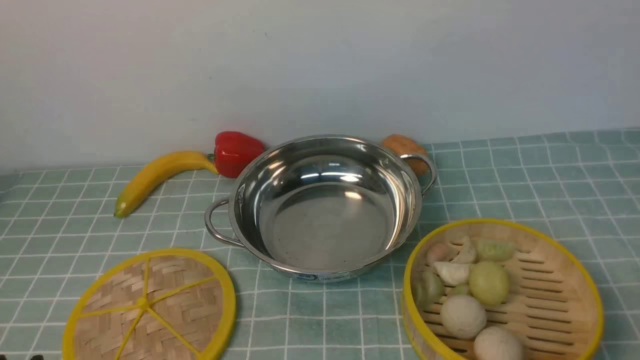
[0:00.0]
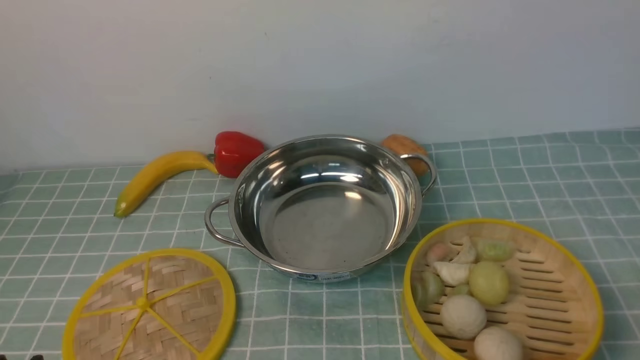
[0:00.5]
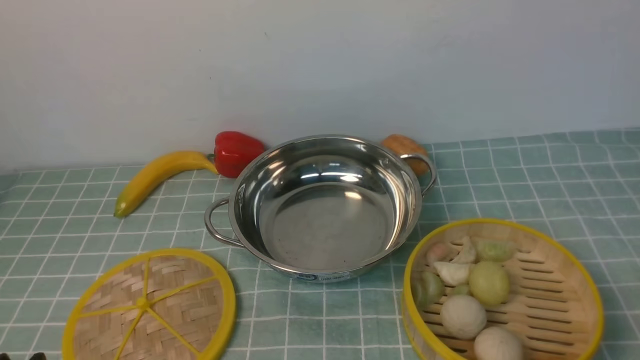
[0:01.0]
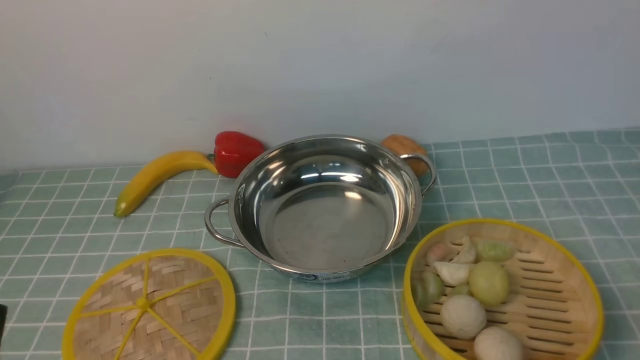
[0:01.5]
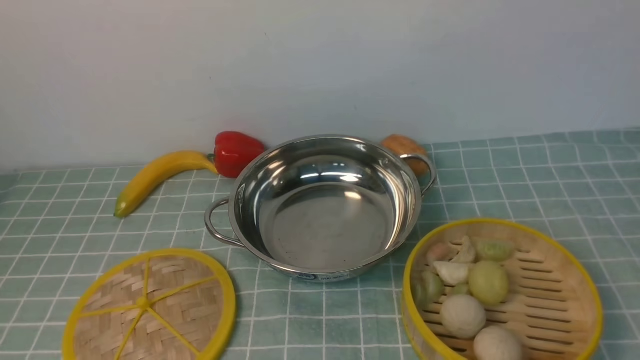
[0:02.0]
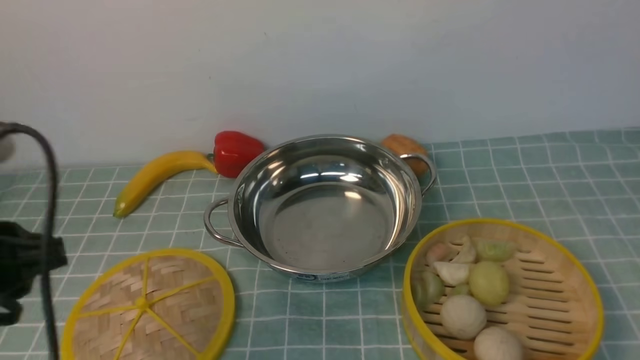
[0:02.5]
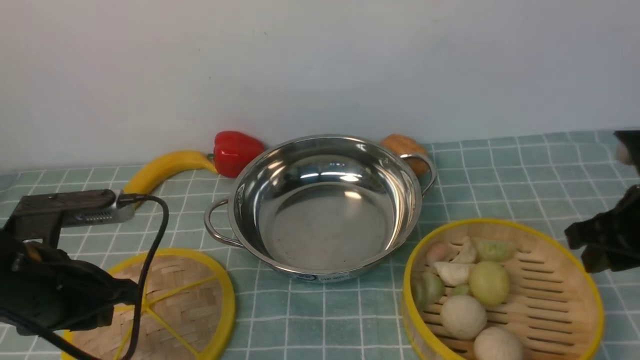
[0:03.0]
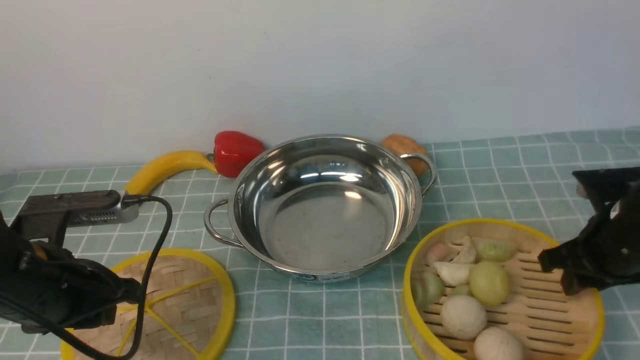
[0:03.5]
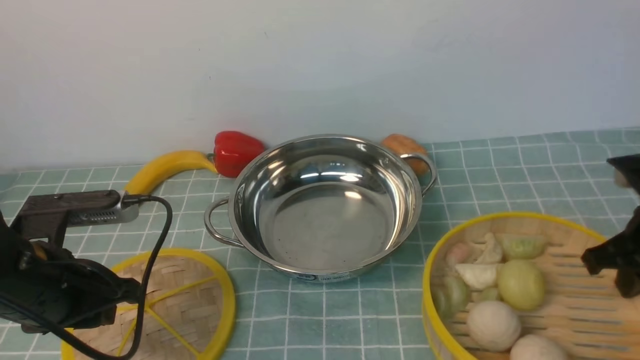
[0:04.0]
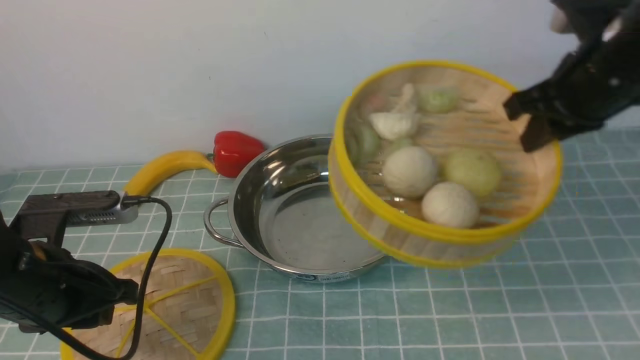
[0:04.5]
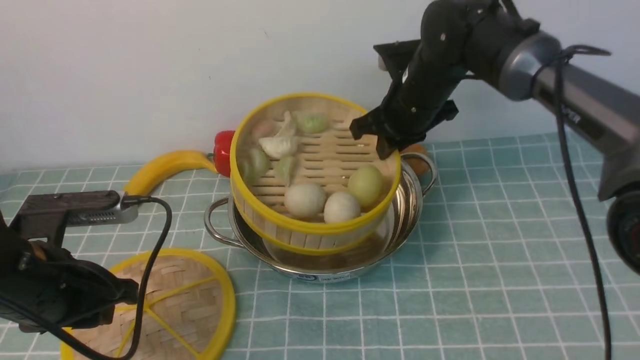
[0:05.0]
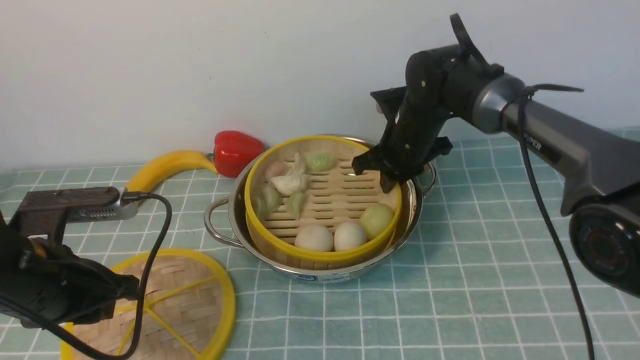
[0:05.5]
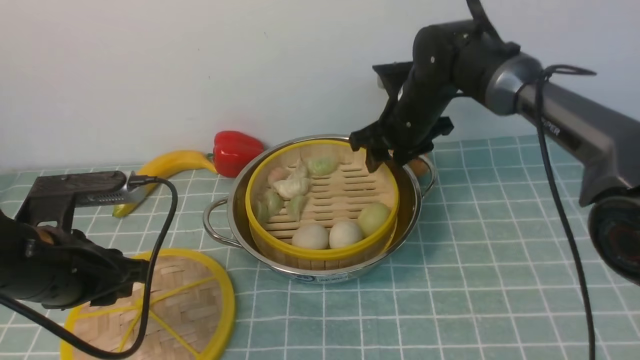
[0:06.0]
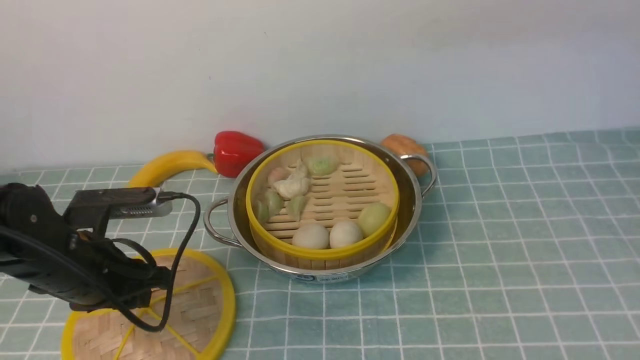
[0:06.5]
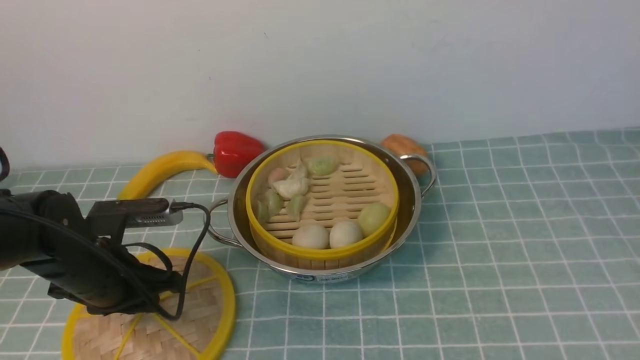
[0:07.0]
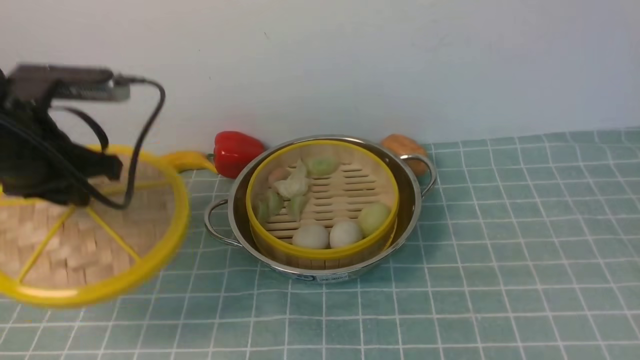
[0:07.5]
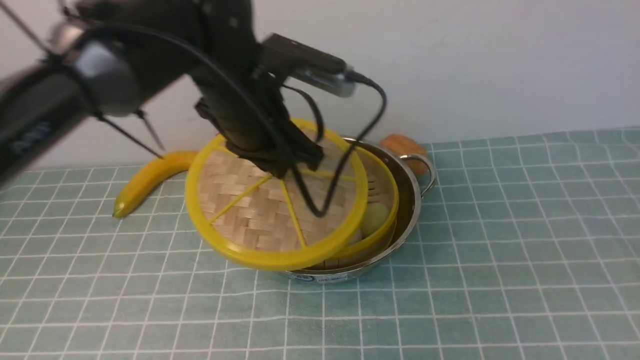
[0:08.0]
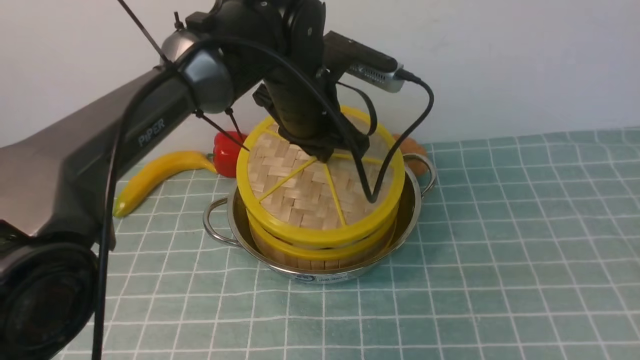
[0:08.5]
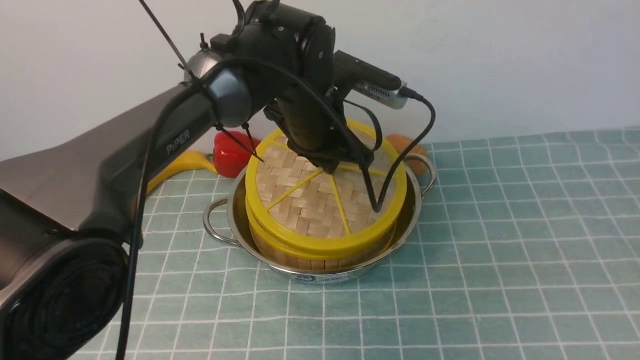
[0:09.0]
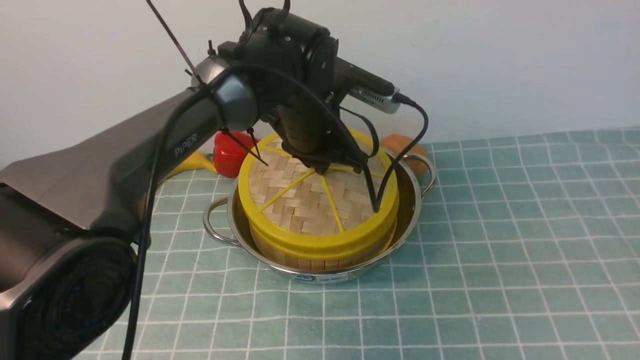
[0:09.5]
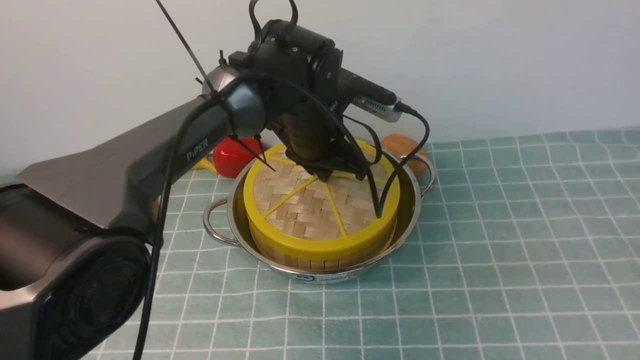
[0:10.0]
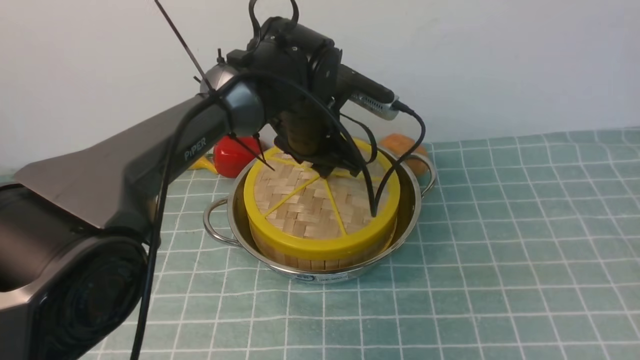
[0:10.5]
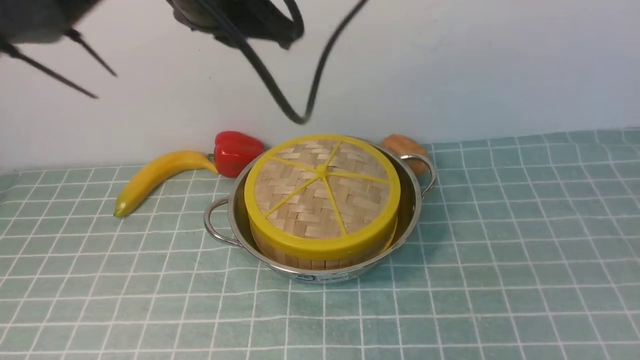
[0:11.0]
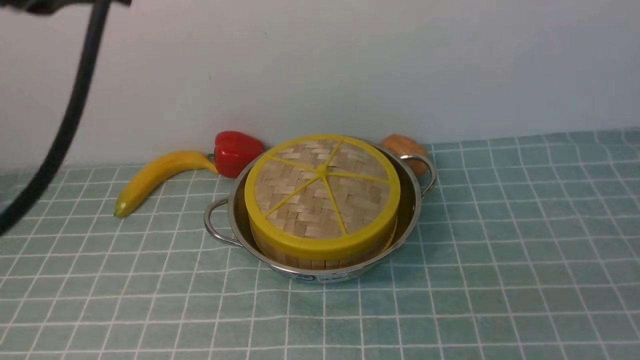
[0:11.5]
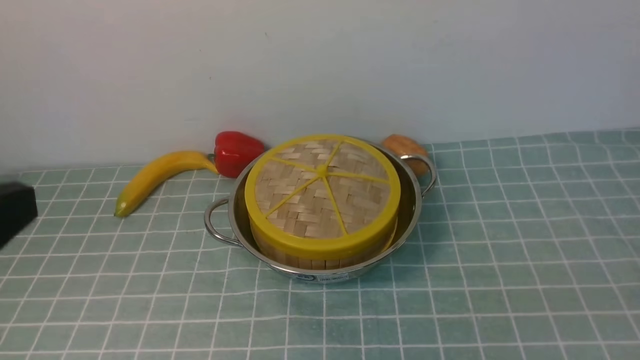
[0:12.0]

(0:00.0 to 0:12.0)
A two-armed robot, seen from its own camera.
Task of the whole recording: place the steamer in the pot on the blue tablecloth, and put the lid on the steamer.
Step, 0:00.0 - 0:04.0: use the right arm to lift the steamer closest to it.
Step, 0:04.5 - 0:06.0: use the right arm to put the steamer into the iron steamer pot in the middle.
Step, 0:08.0 - 0:11.0: use the left arm to place the steamer lid on the steamer.
0:02.0 - 0:04.0: The right gripper moves forward and downward, about 25 cm, and closes its fingers, while the left gripper moves forward, approximately 20 cm.
0:04.0 - 0:06.0: The right gripper travels to the left and forward by about 25 cm, and opens up.
0:06.0 - 0:08.0: The right gripper heads backward and to the right, covering some 50 cm. The left gripper shifts approximately 20 cm forward, to the right and upward, and closes its fingers.
0:08.0 - 0:10.0: The left gripper is displaced to the right, downward and forward by approximately 15 cm.
0:10.0 - 0:12.0: The right gripper goes about 10 cm downward, and closes its fingers; the left gripper goes approximately 40 cm backward, to the left and upward, and closes up.

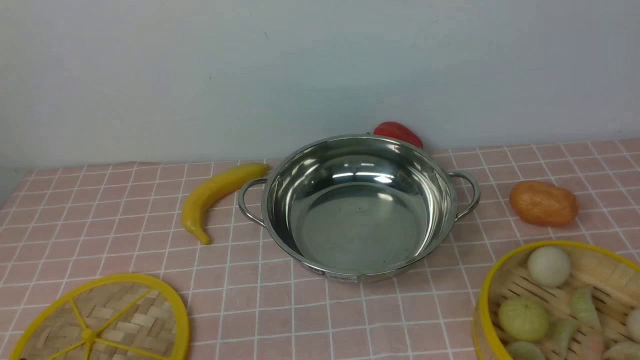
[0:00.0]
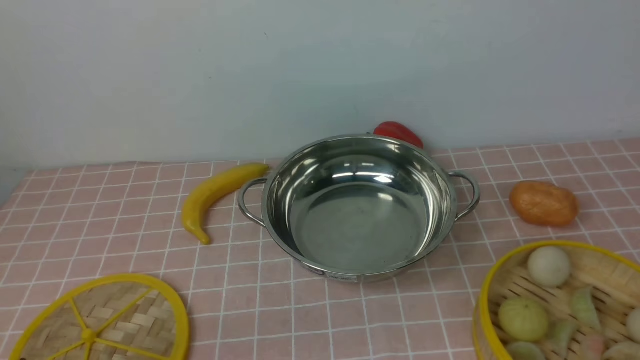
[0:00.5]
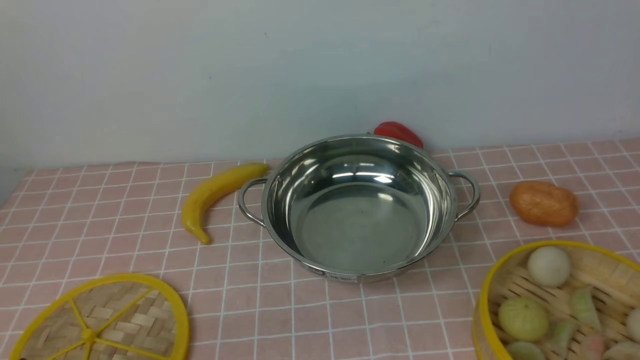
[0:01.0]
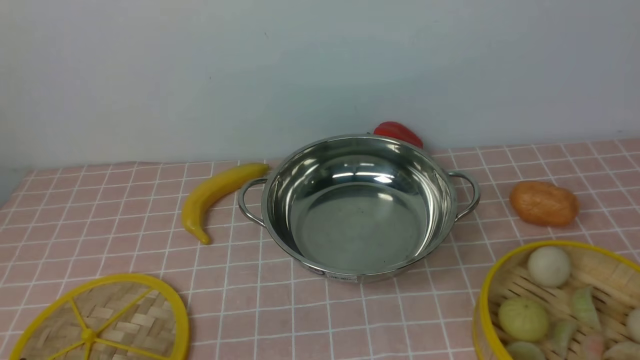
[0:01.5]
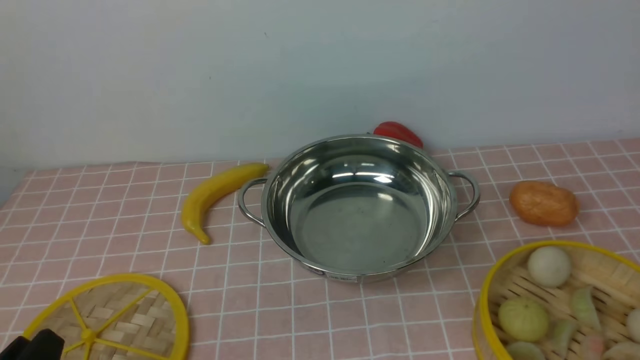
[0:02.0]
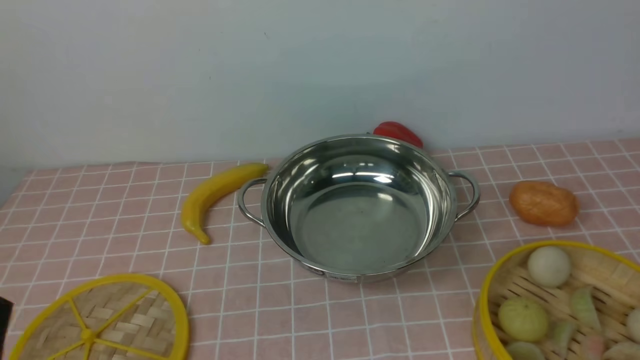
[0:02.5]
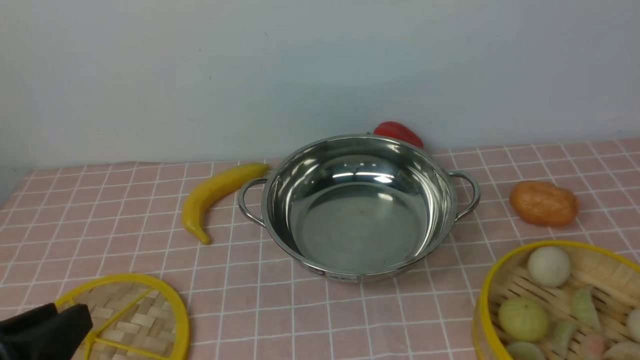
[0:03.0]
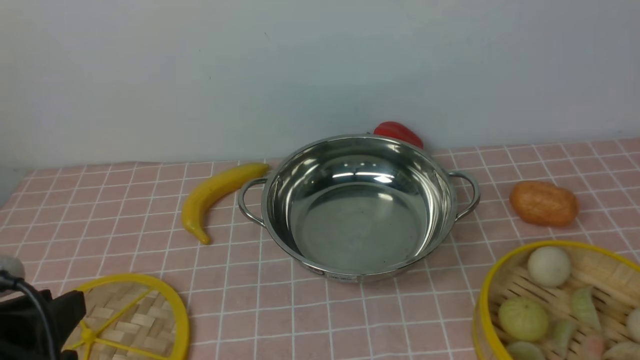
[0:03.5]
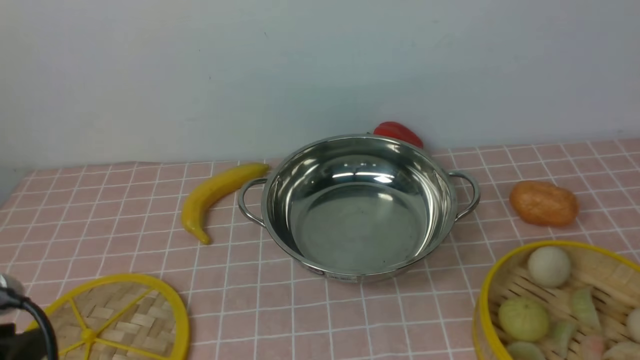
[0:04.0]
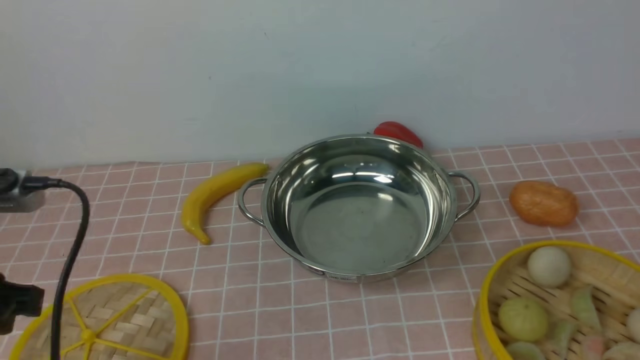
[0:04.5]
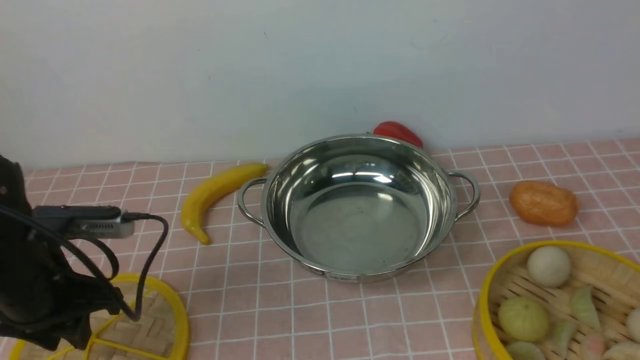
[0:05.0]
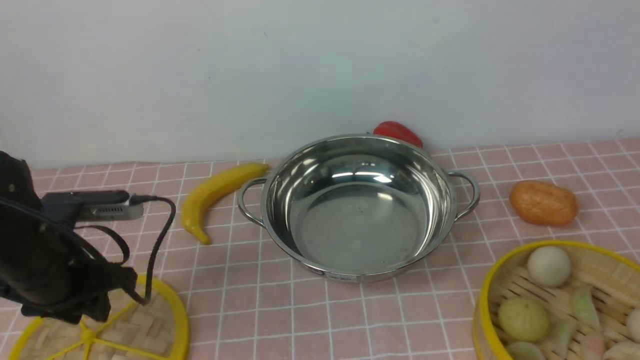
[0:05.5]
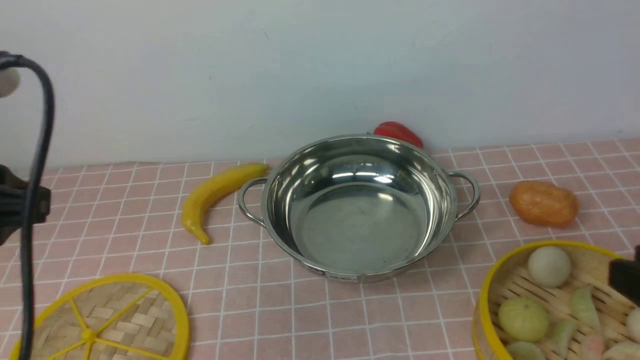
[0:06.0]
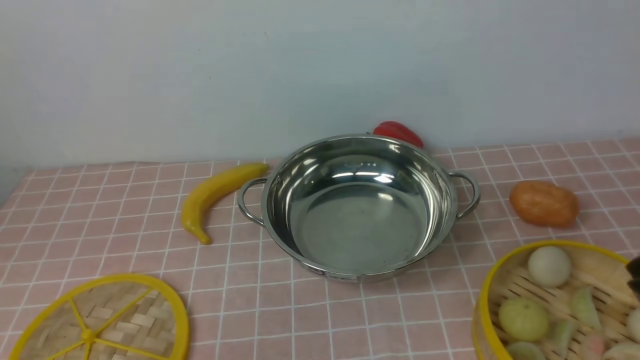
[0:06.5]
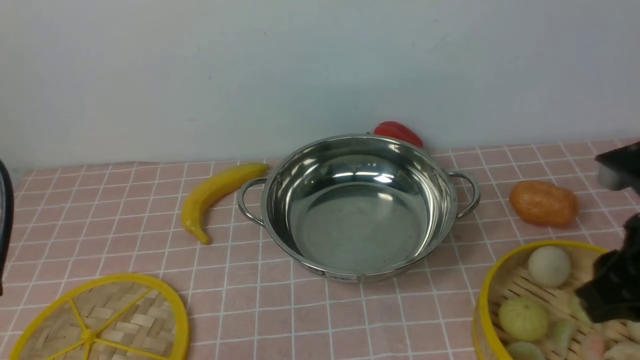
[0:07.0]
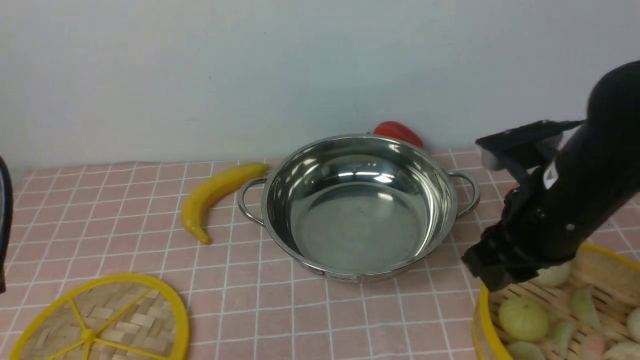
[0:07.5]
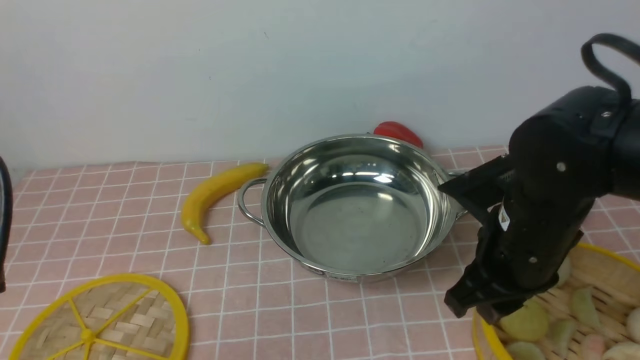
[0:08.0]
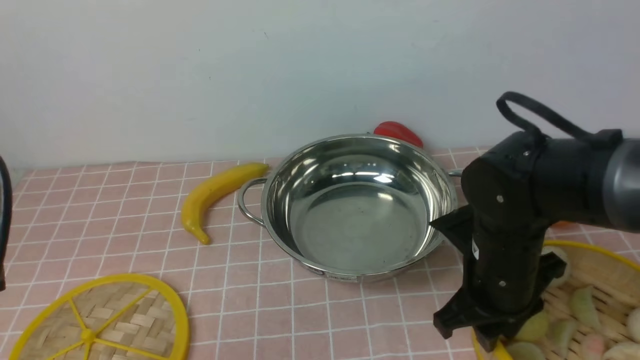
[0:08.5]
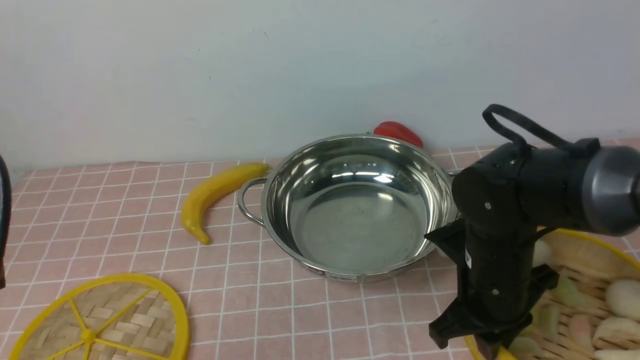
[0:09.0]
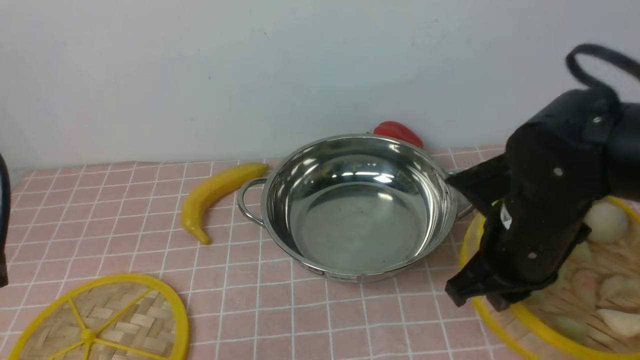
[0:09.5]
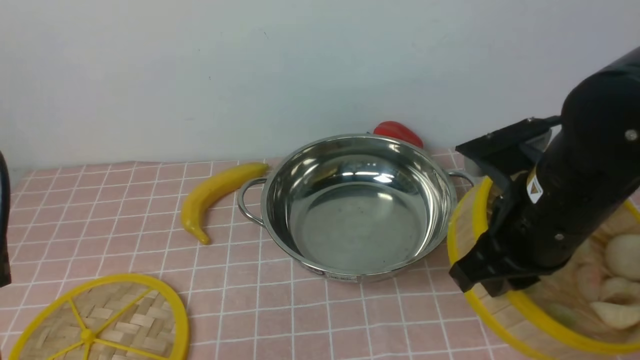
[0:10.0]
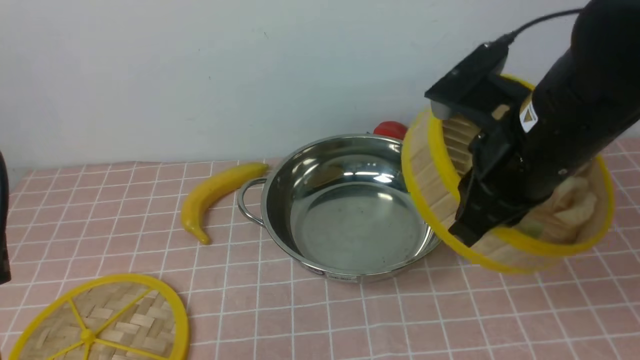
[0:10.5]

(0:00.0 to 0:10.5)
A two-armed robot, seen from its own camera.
Task of the whole recording: place the steamer in the pot on the pink tablecloth, and put the lid on the steamer.
Step, 0:00.0 - 0:09.0: use the right arm to lift the steamer closest to it.
0:02.0 - 0:04.0: The left gripper shifts roughly 10 cm upward.
0:04.0 - 0:06.5: The left gripper moves upward, some 10 cm, and reaches about 20 cm forward, then returns.
0:06.5 - 0:08.5: The right gripper travels downward, to the left and forward by approximately 20 cm.
0:08.5 - 0:10.5: The right gripper goes roughly 15 cm upward, and closes up.
